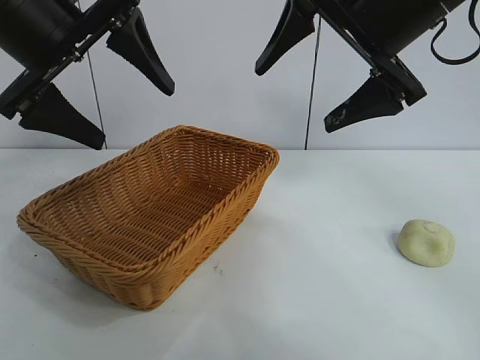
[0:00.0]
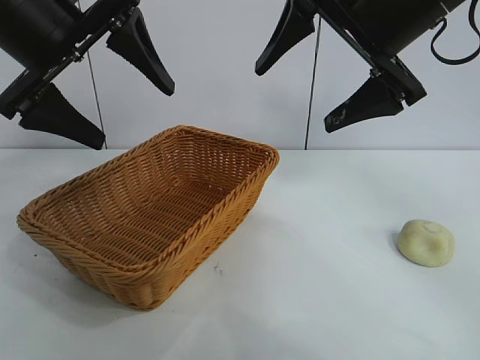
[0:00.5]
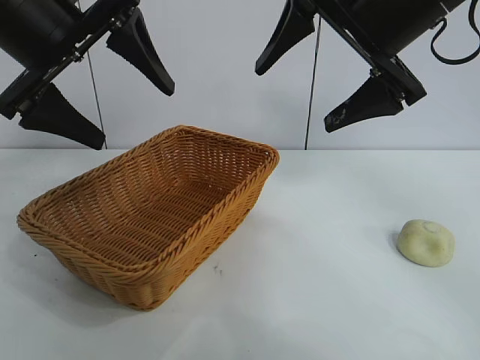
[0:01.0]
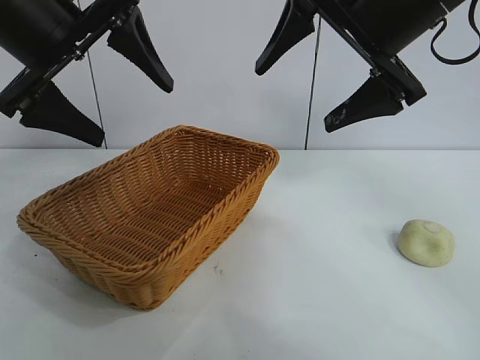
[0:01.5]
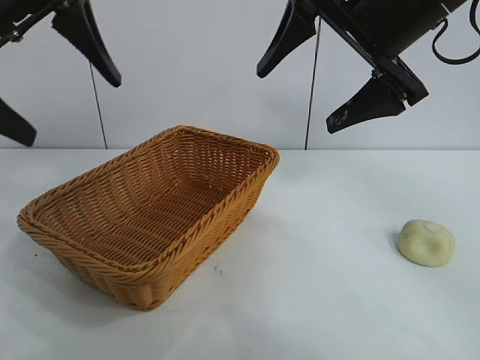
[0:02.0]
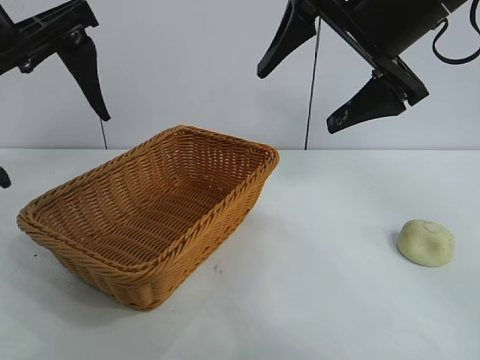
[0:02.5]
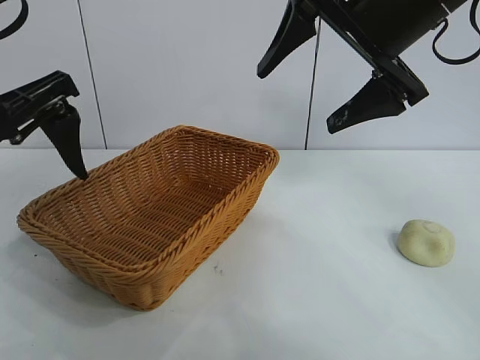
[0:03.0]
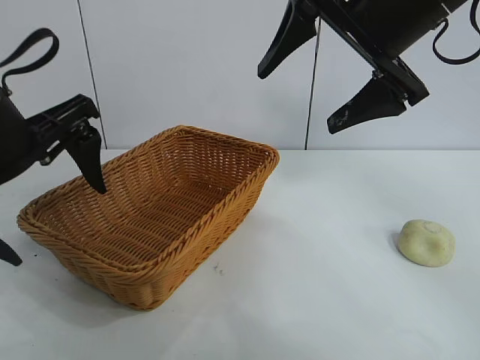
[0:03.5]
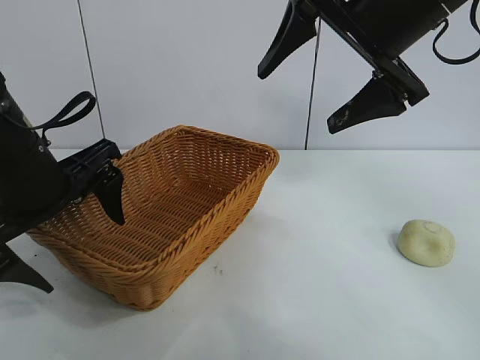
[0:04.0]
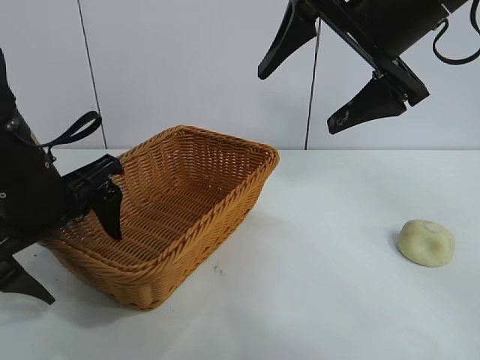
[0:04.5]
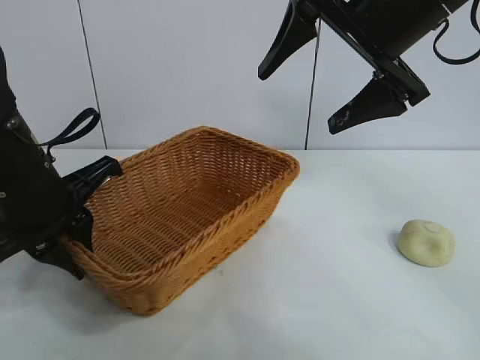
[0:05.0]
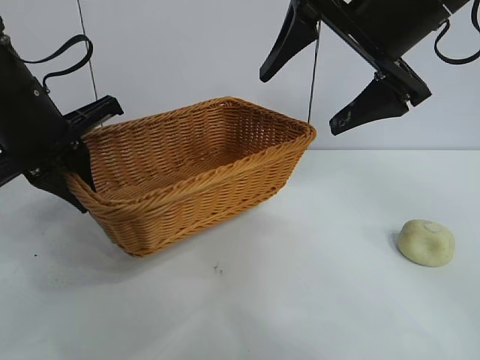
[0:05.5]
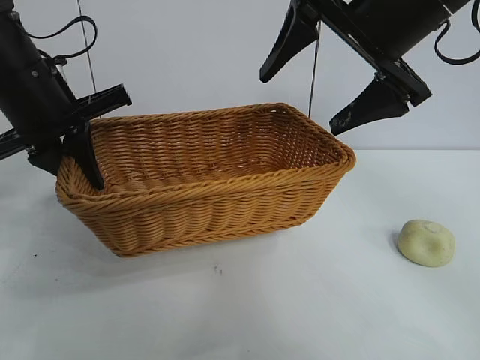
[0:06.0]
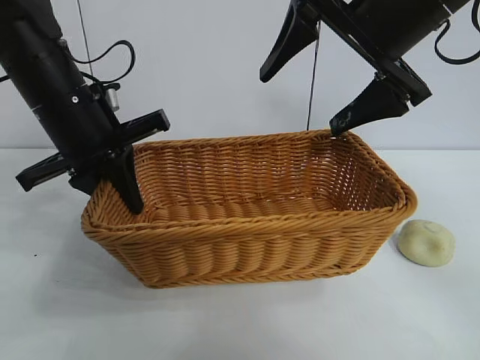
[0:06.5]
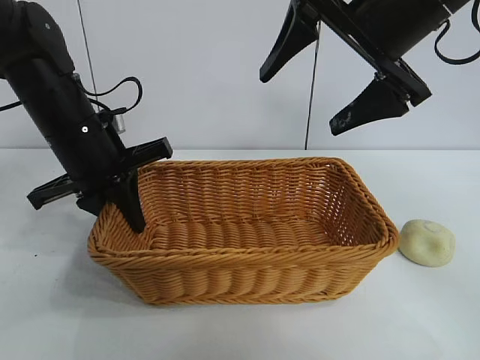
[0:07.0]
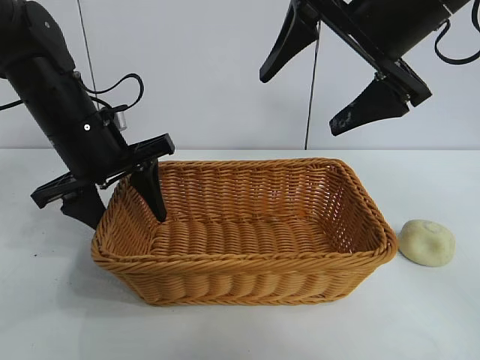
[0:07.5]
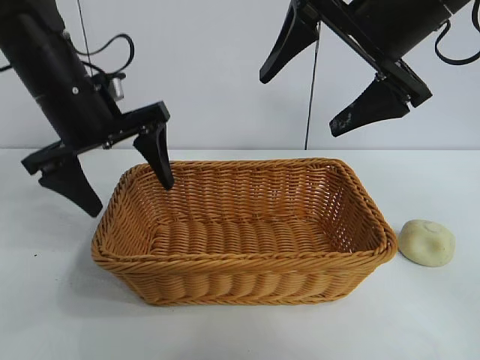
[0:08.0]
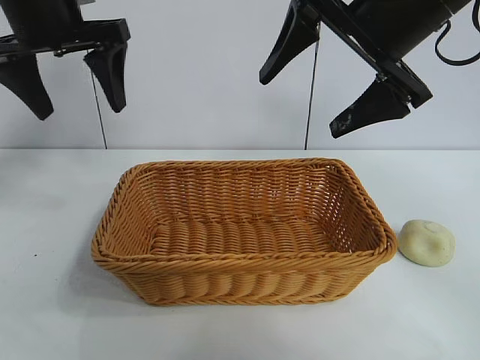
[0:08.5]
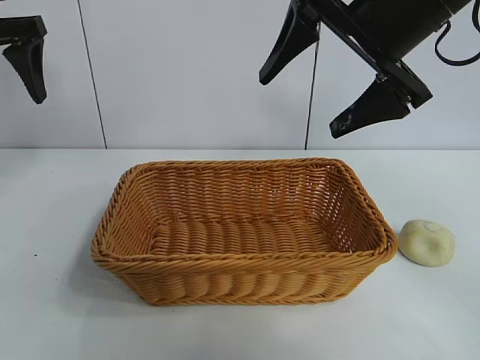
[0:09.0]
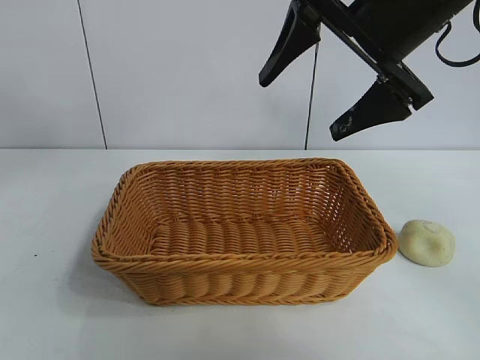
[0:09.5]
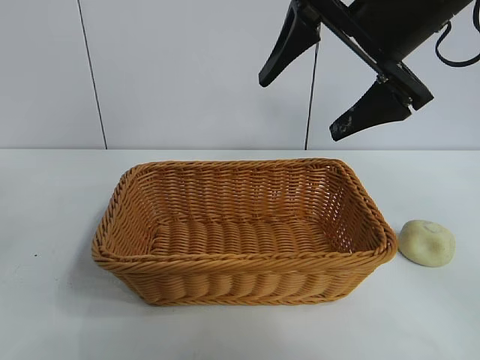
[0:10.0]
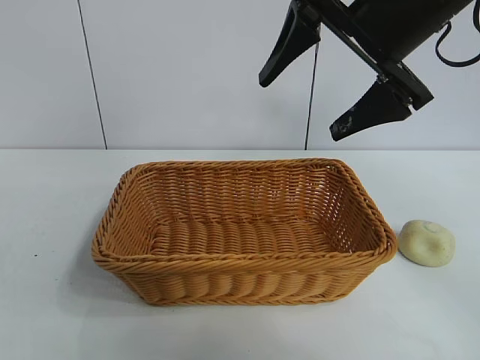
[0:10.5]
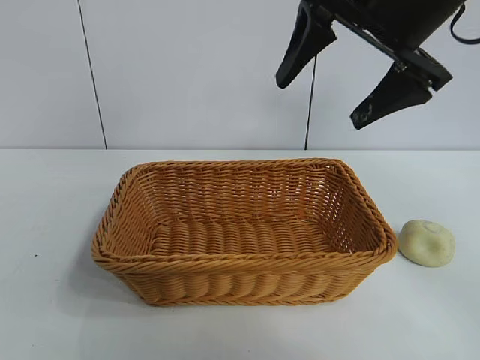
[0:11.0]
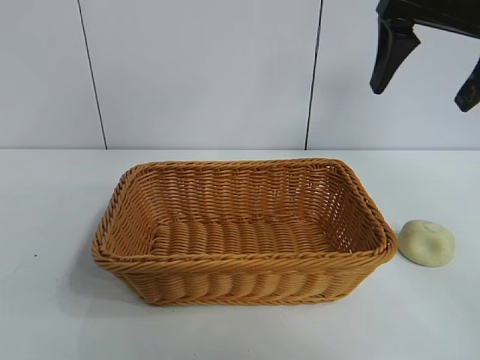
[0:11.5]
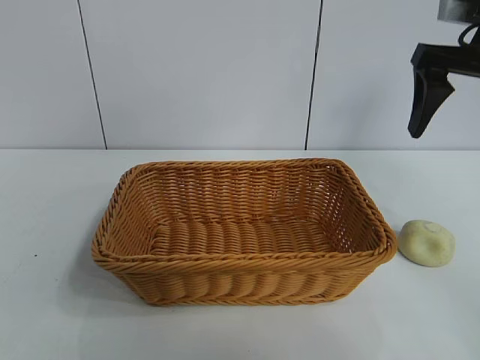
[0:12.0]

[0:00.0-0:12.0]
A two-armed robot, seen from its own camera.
Task of the whole recording: pick up the egg yolk pastry and put it into the basket.
Step, 0:01.5 to 0:05.0: Grasp the basket with left gripper.
Step, 0:05.5 to 0:07.5: Place the basket in the center of view with left gripper.

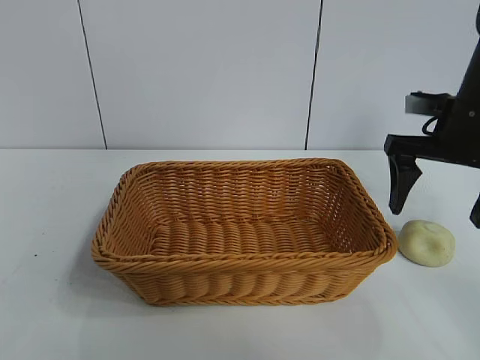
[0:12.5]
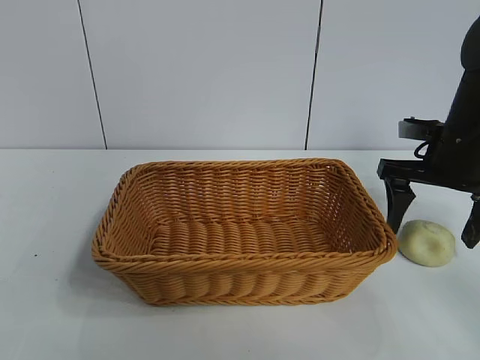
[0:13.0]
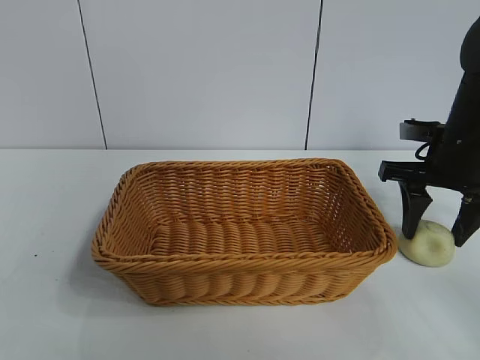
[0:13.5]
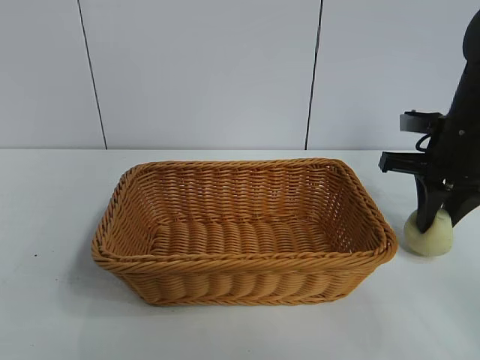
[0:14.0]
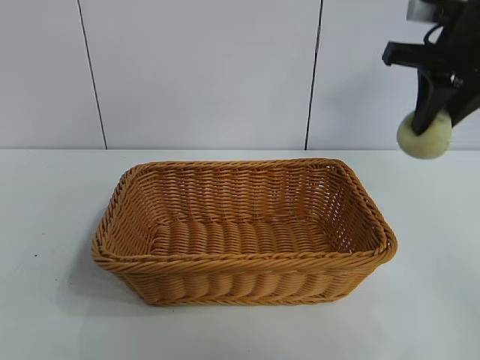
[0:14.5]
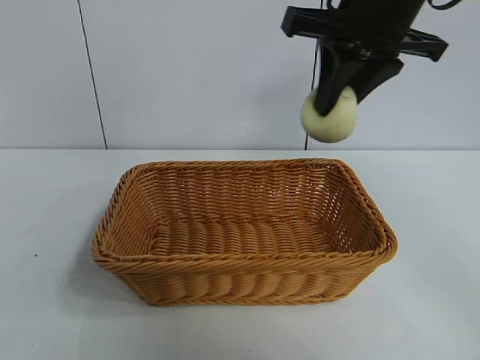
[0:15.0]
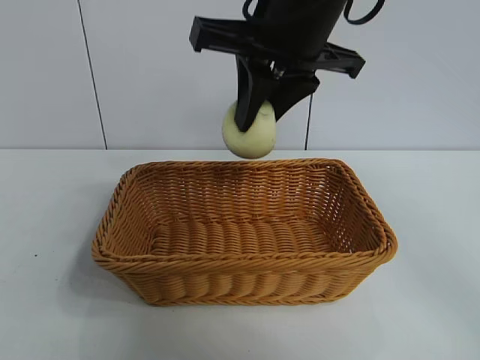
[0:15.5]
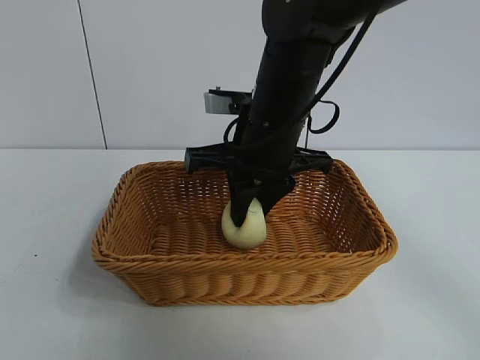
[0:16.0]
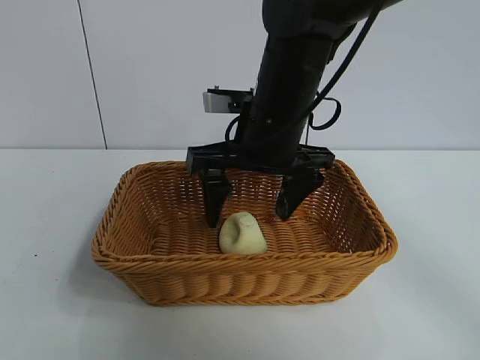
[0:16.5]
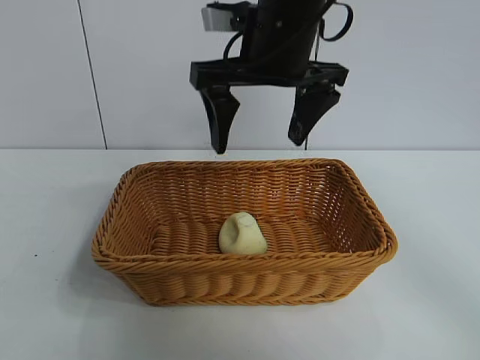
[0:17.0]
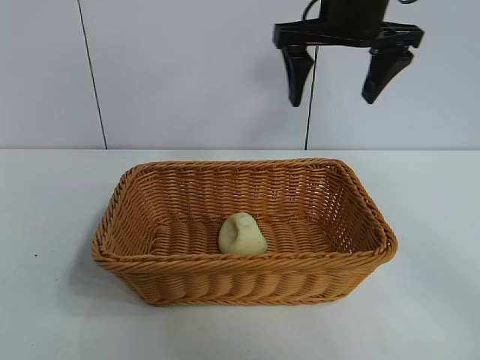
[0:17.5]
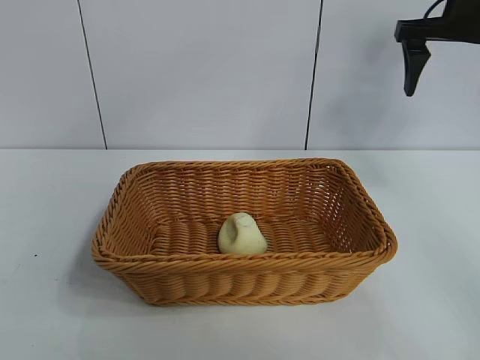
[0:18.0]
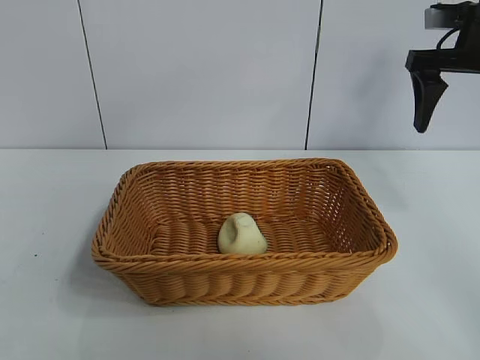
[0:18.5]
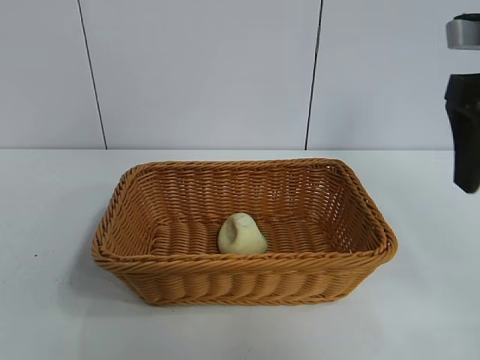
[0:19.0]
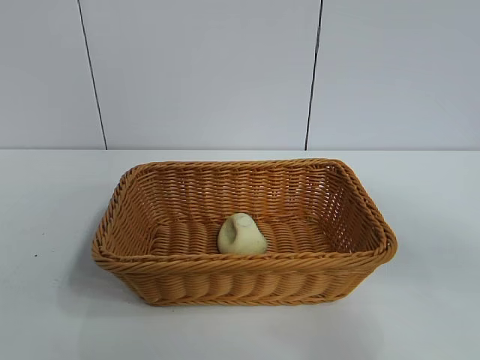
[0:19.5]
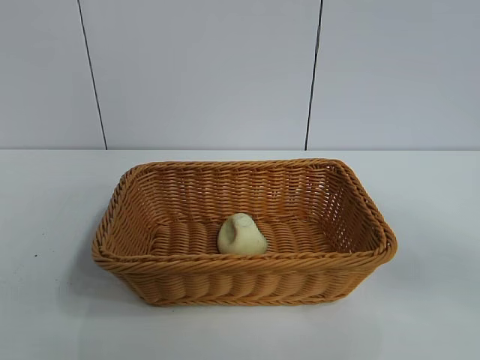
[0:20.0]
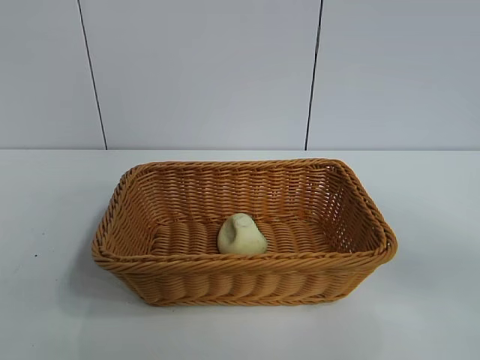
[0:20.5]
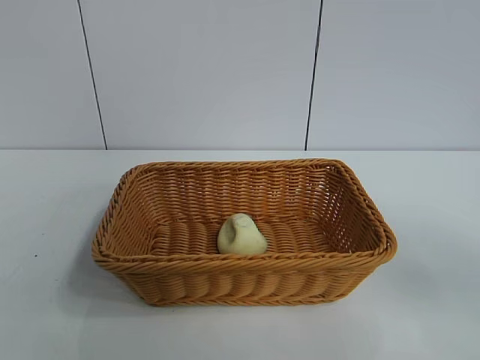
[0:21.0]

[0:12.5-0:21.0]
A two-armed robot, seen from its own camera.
Task of the whole recording: pick up the egg yolk pastry and put it into the basket.
Step, 0:14.0 to 0:16.0: Place the egg yolk pastry in the basket with right gripper.

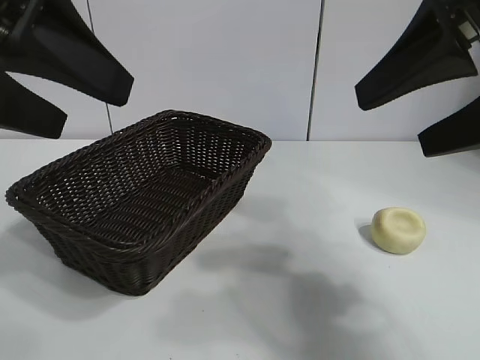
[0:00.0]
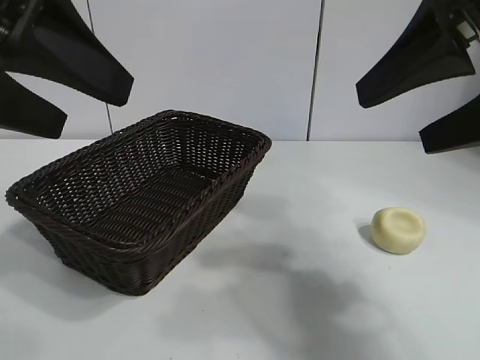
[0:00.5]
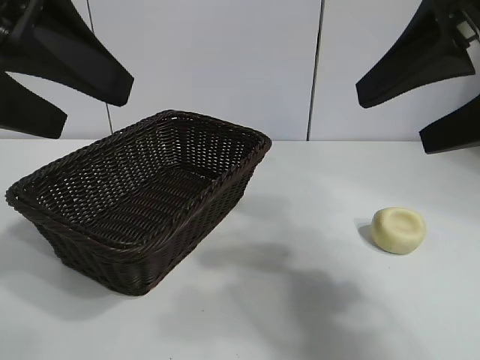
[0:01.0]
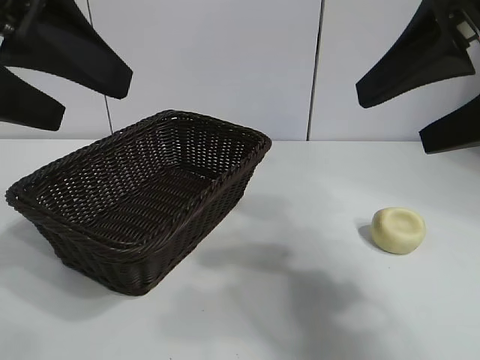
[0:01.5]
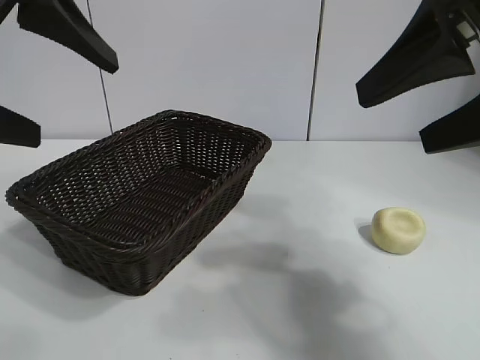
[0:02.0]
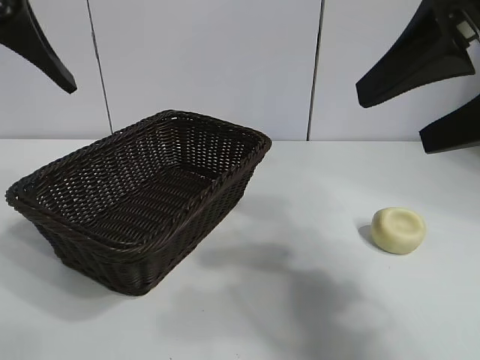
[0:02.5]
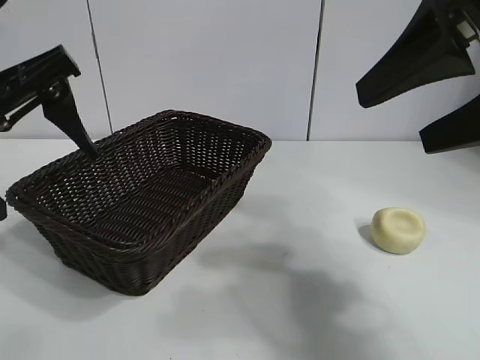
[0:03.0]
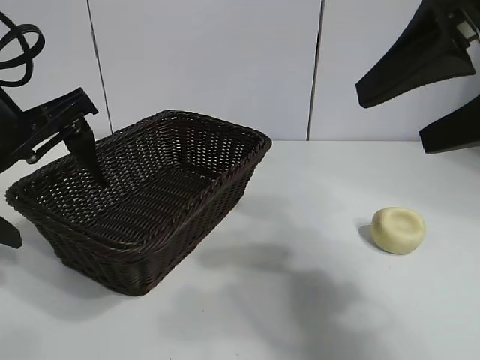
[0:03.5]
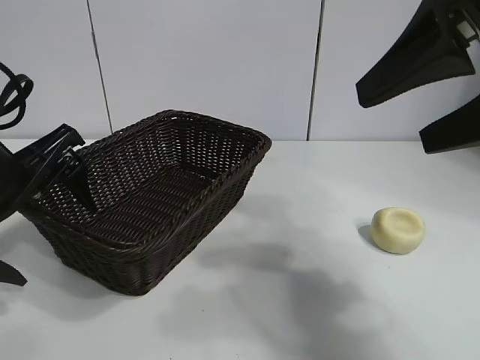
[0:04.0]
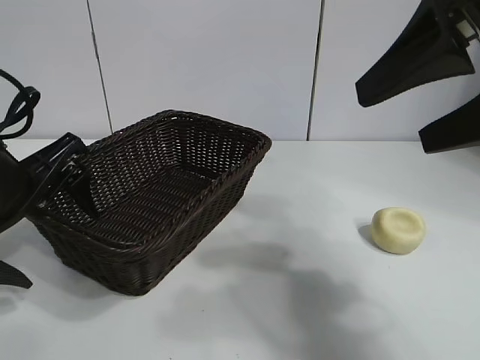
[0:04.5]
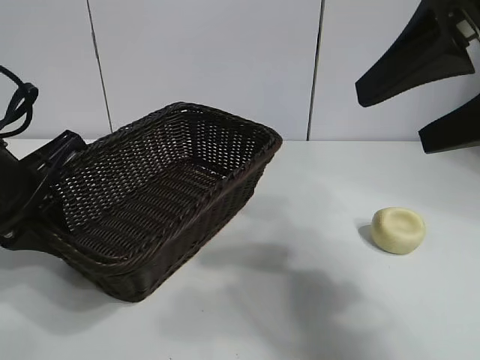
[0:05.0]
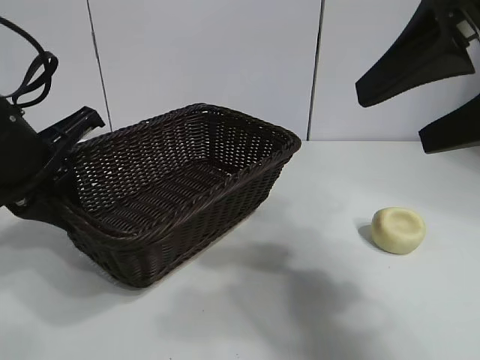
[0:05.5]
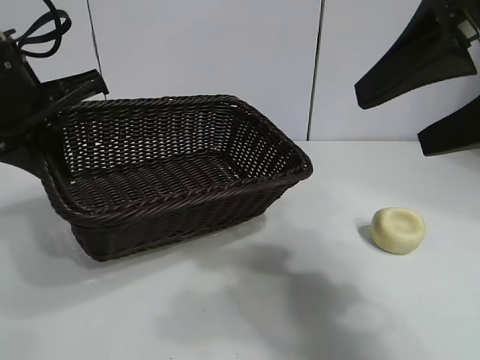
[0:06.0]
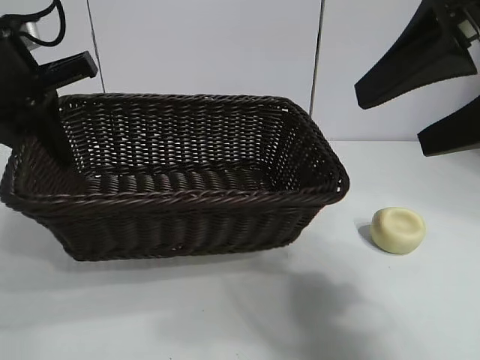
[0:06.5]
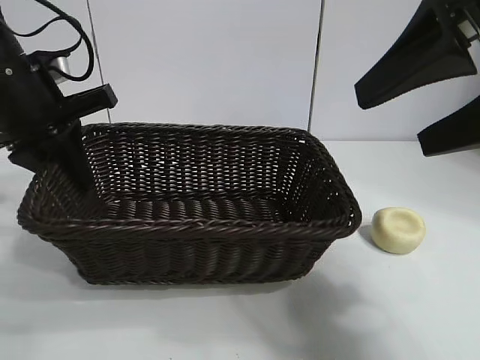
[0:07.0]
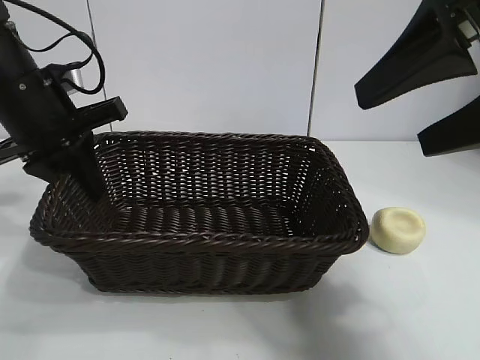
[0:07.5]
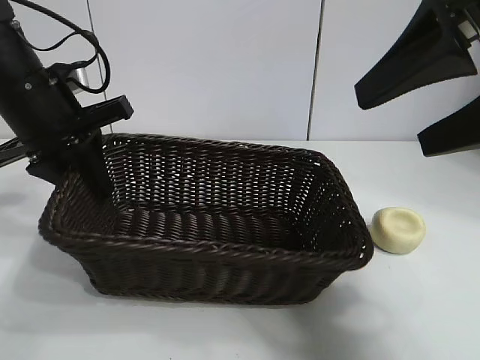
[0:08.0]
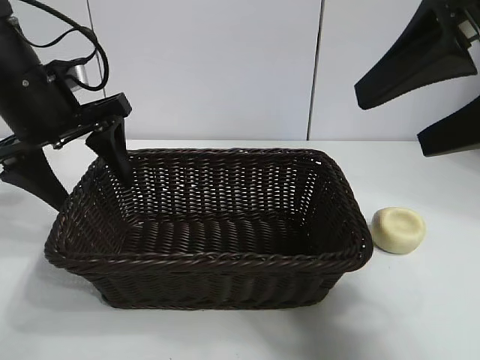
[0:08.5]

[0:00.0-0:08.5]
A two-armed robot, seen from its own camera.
Task of the whole recording: pick up the egg yolk pastry and put it into the basket.
Step, 0:01.5 to 0:04.5: Grasp the basket with left gripper.
Step, 0:05.5 to 0:08.0: Place the basket in the center of view with left gripper.
